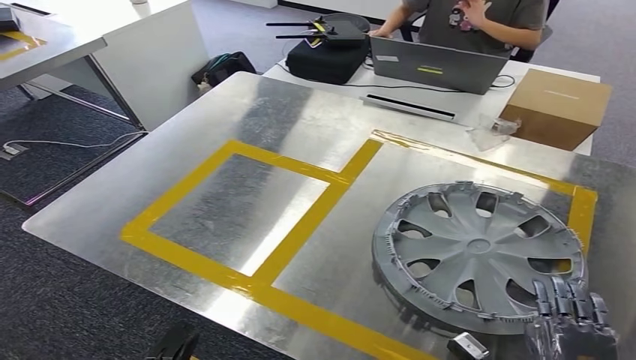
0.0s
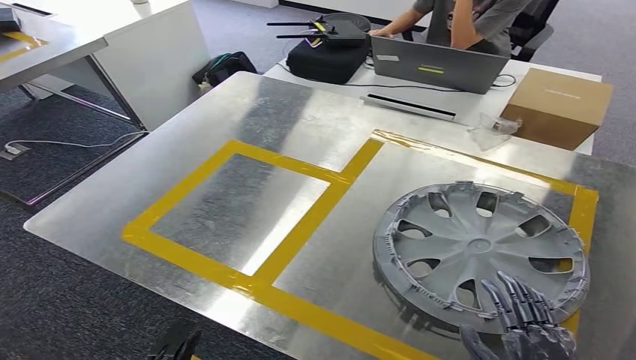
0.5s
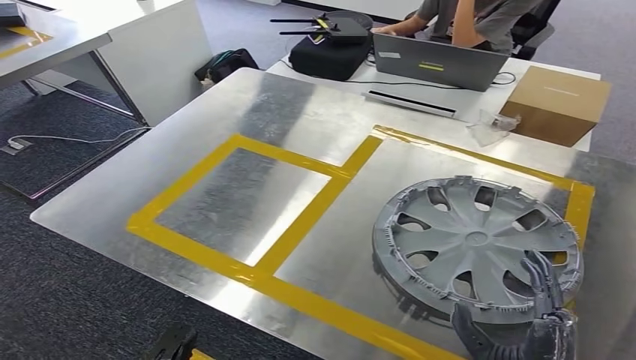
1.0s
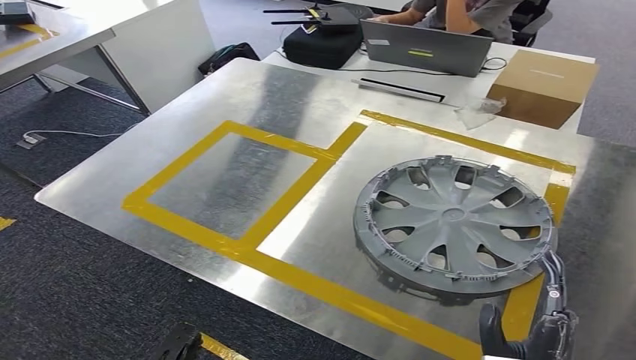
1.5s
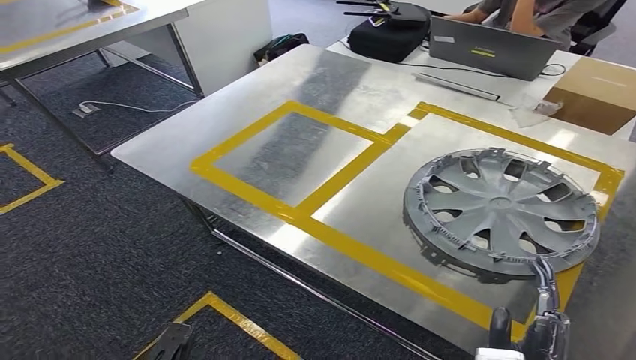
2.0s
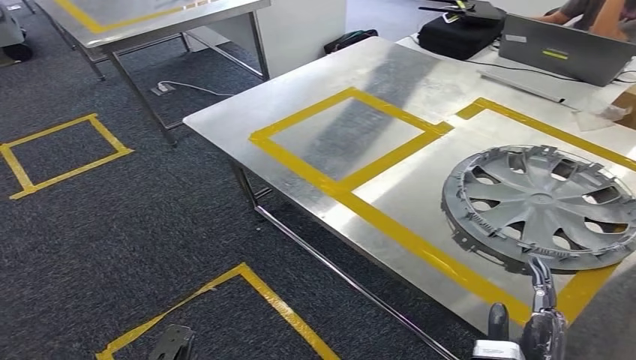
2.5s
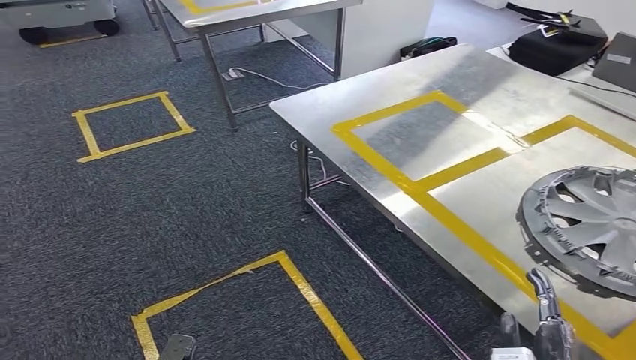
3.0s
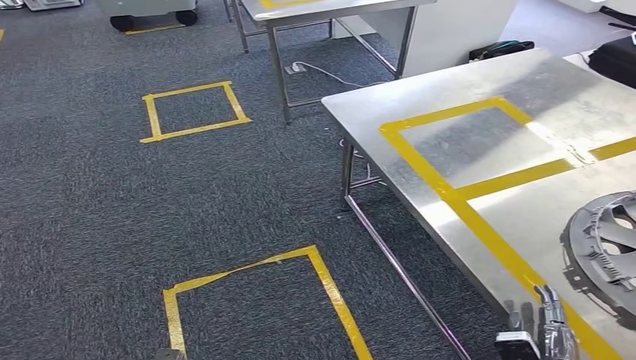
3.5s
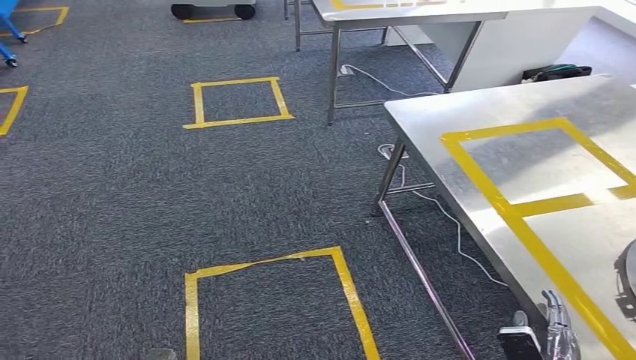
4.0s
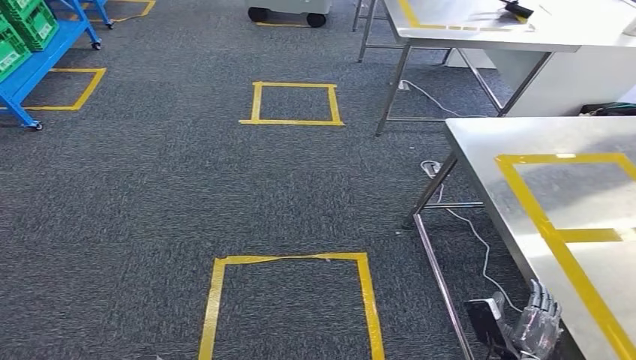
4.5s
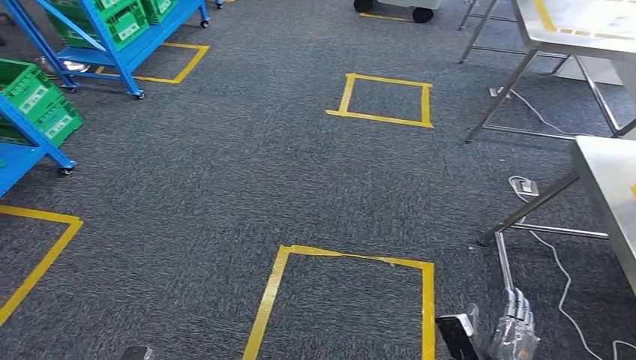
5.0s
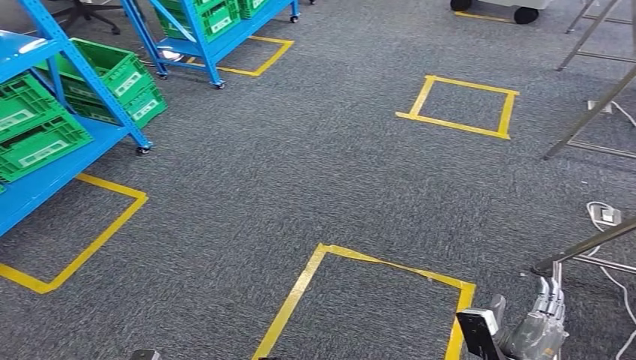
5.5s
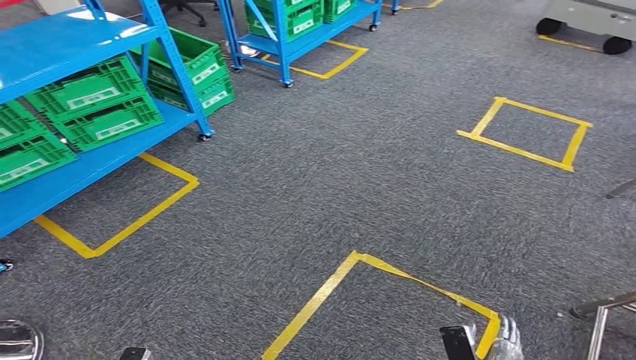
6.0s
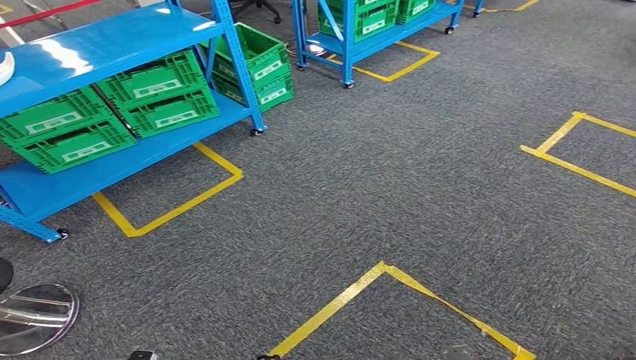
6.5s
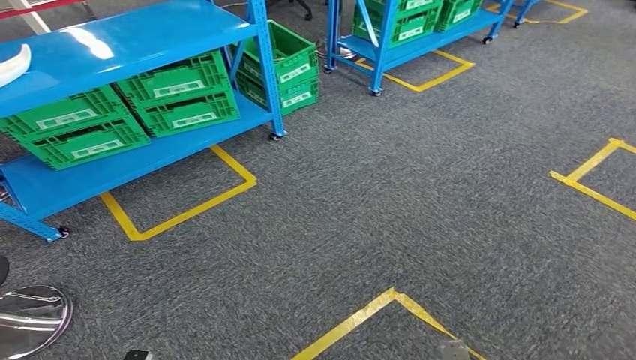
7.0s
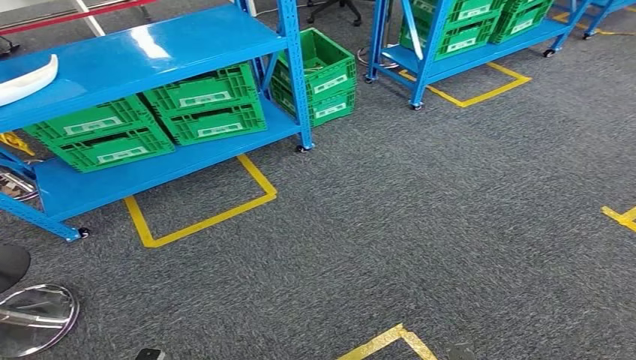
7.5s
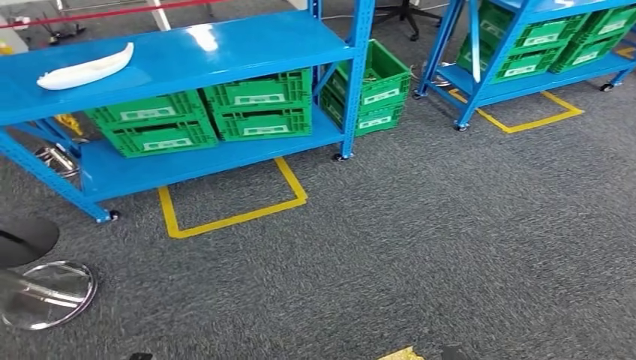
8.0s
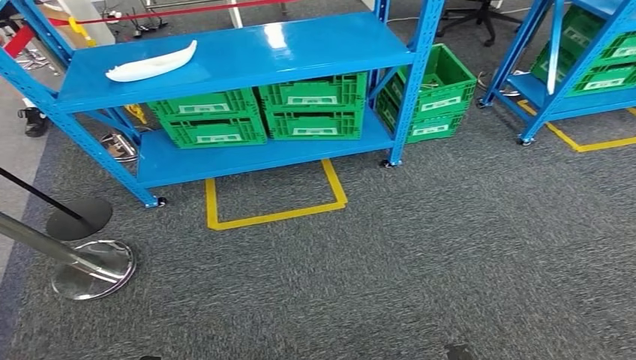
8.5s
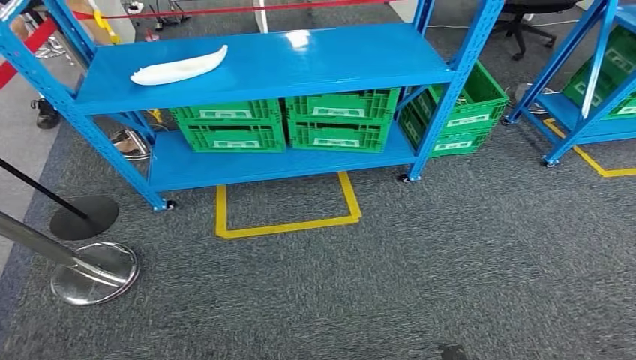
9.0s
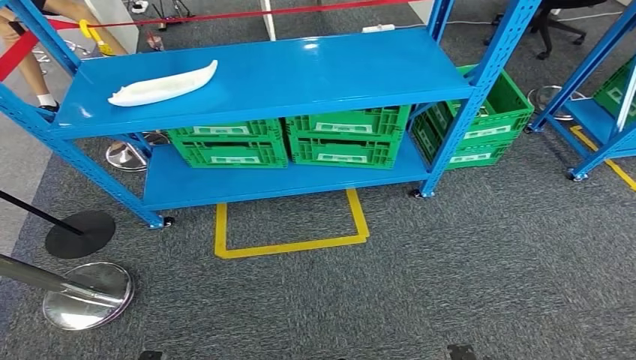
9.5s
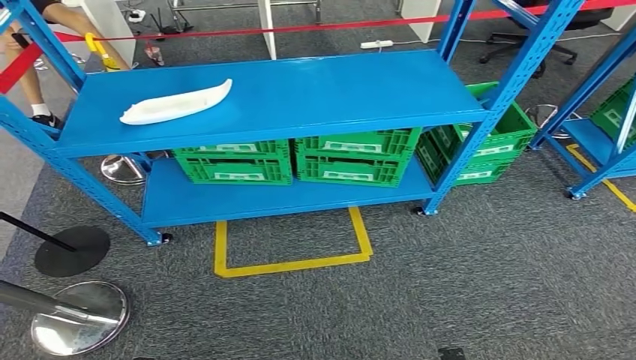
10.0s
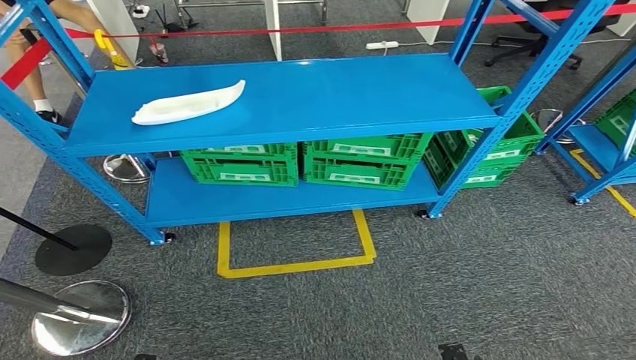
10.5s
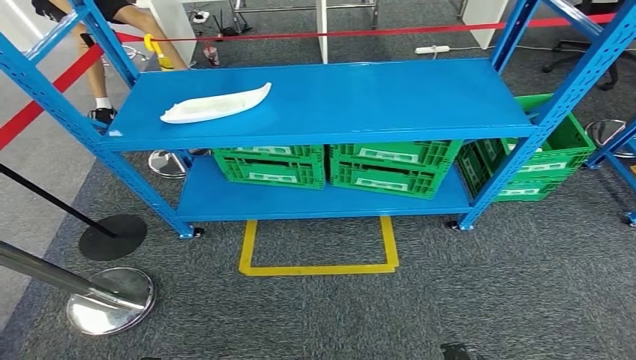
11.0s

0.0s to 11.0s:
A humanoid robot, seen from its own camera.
Step, 2.5s to 11.0s: Return to the initial position at the workbench.
